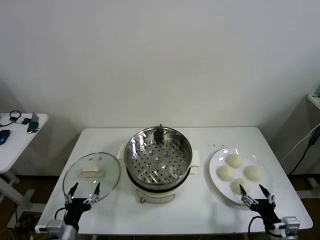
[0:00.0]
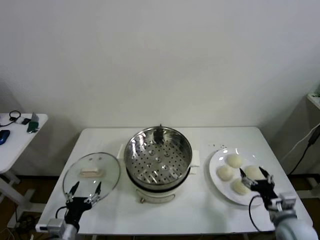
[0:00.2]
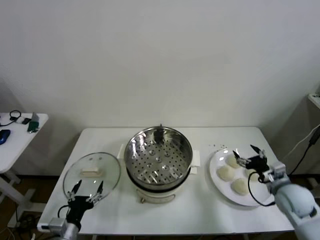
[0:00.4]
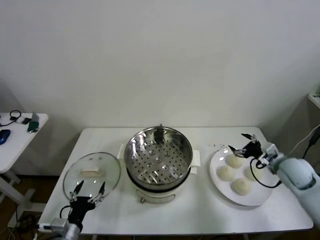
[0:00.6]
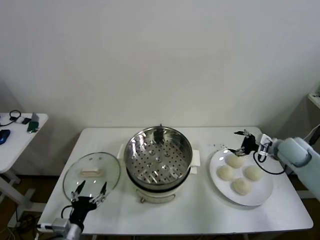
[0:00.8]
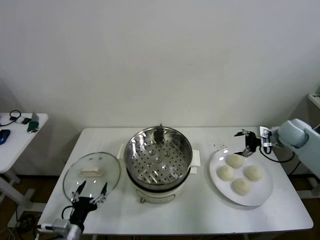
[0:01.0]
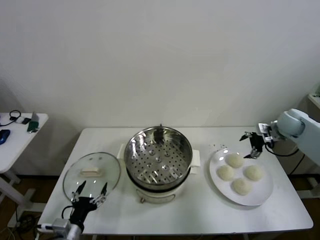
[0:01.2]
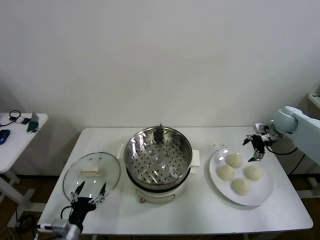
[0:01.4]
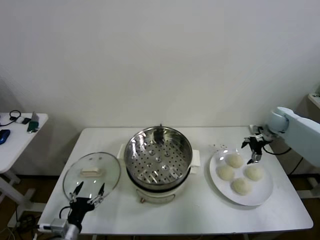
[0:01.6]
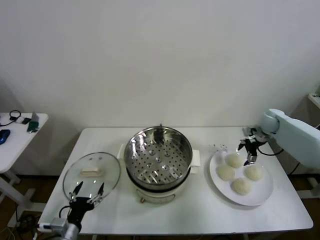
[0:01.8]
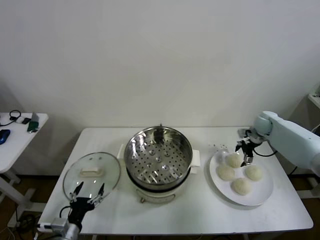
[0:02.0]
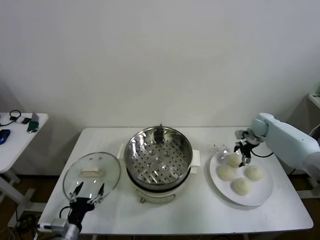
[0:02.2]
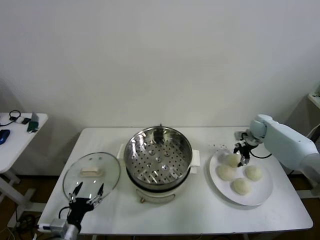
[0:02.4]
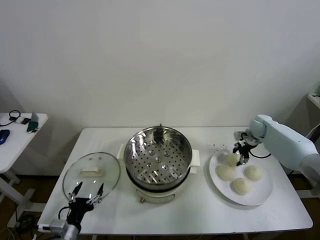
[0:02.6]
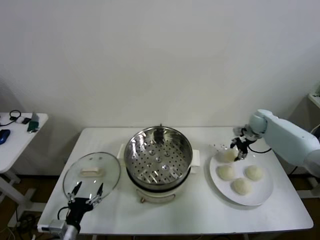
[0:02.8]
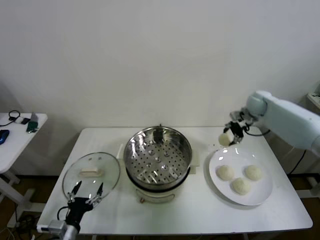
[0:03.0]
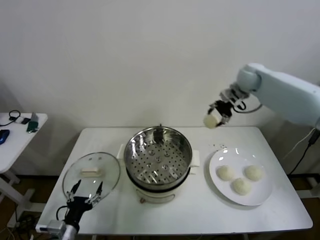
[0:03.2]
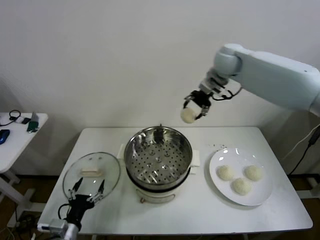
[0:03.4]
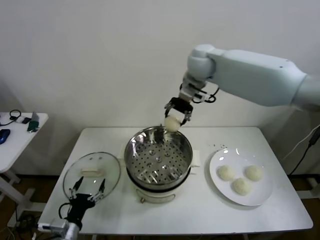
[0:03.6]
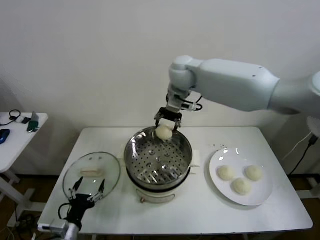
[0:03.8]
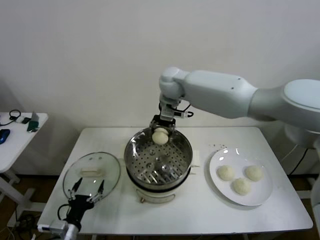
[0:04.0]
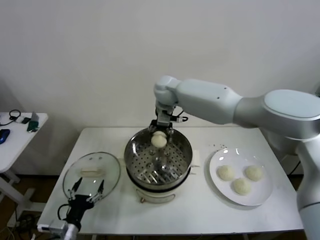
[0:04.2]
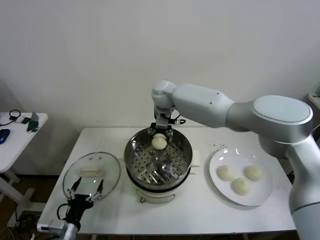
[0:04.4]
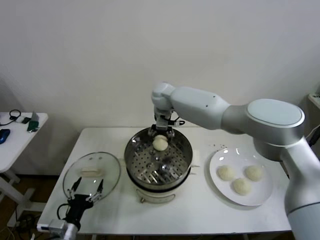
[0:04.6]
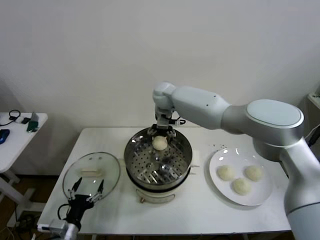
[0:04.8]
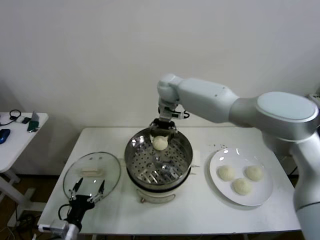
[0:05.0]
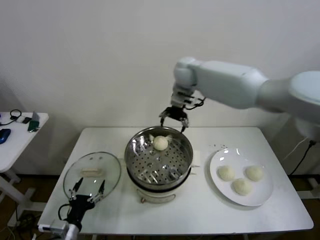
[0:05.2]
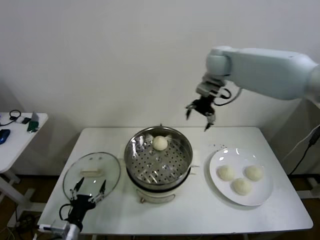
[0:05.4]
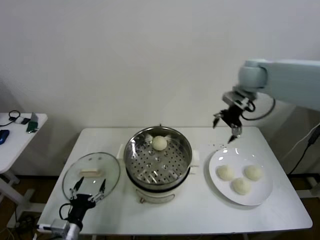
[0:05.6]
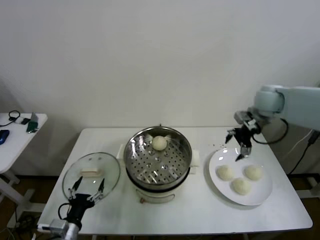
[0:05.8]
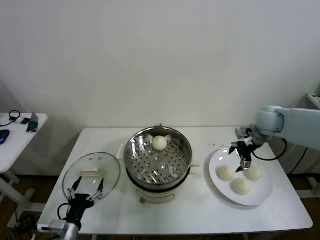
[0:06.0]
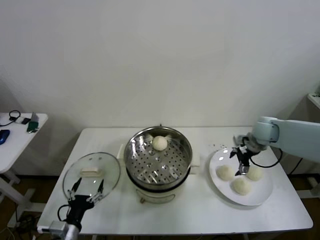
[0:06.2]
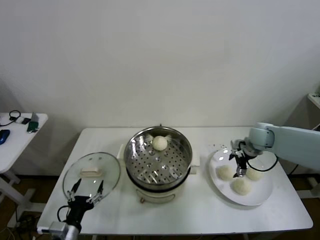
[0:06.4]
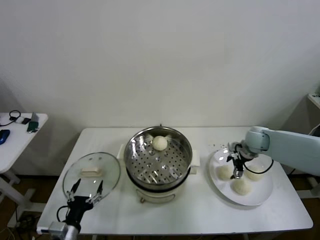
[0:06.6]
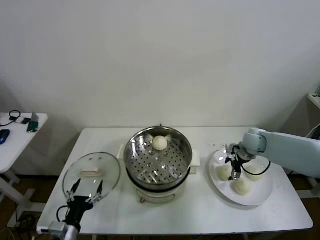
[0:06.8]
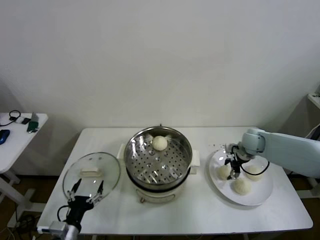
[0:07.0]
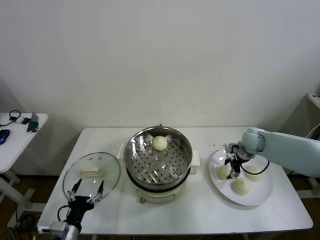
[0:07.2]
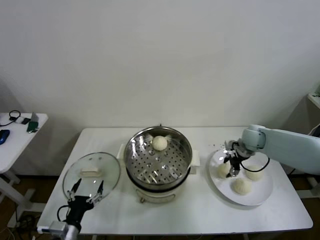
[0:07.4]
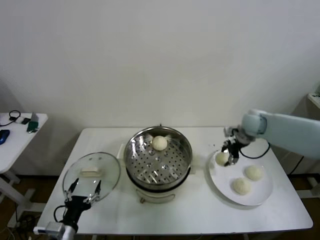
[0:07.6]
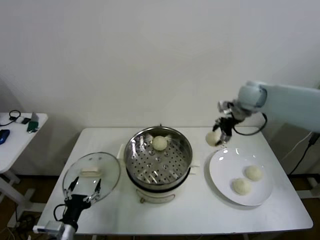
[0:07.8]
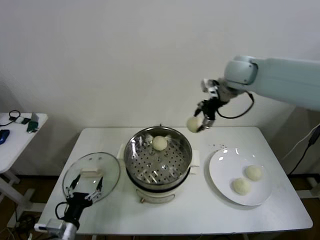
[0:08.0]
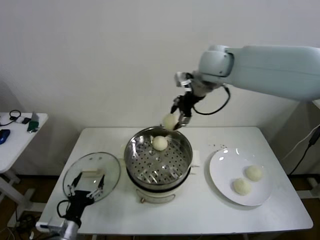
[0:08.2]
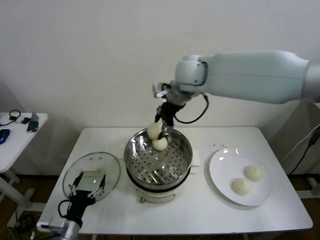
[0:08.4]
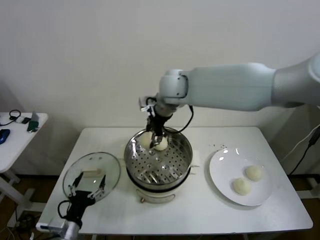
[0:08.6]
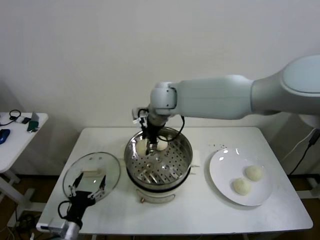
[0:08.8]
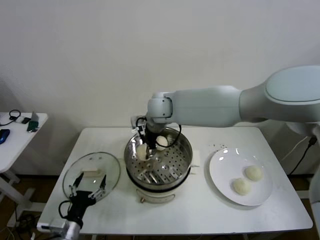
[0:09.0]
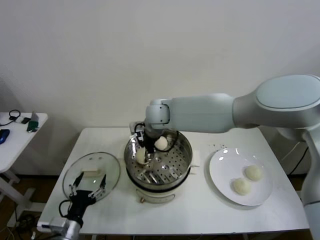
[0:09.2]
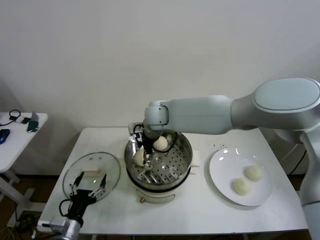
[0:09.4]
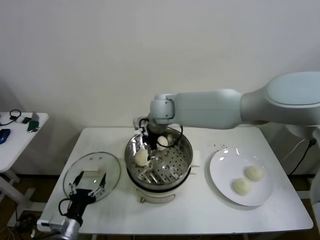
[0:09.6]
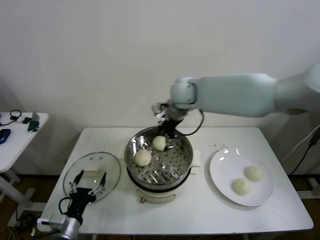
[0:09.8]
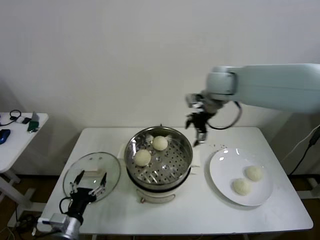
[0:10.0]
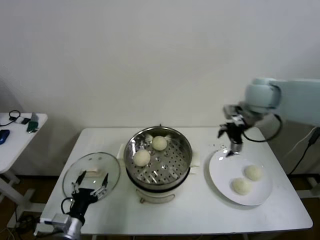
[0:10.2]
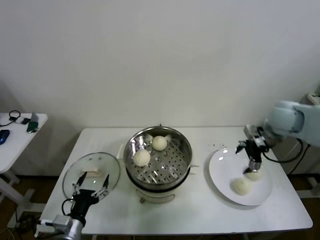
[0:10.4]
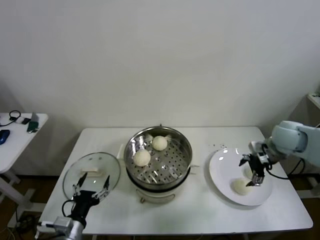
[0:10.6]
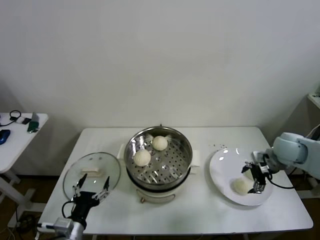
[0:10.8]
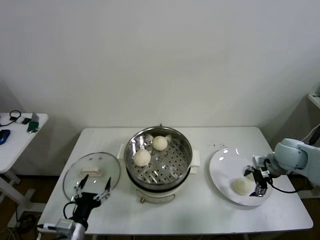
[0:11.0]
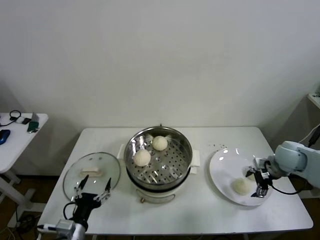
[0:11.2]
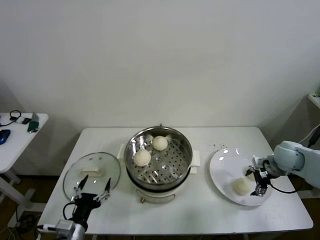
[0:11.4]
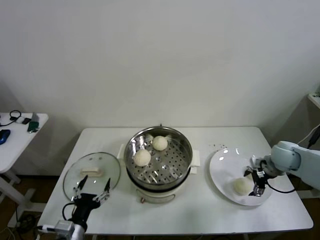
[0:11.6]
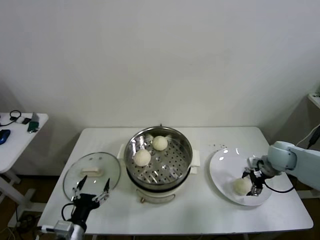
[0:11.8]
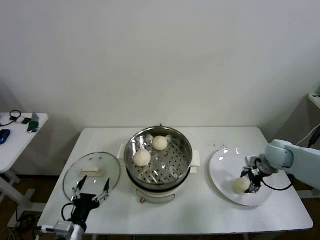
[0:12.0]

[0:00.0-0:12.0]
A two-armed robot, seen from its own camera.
Step, 0:00.0 to 0:02.4: Grasp the baozi in the plate with right gripper.
Step, 0:02.6 to 0:04.6: Place the baozi on the steamer with right gripper.
Step, 0:04.8 to 0:07.0: Grasp the baozi in the plate with right gripper.
Step, 0:07.4 to 0:09.4: Place the baozi on the steamer with right gripper.
0:01.6 to 0:03.0: The right gripper heads to the left and forward, covering about 10 cm, and closes up.
0:03.0 to 0:04.4: The right gripper shifts approximately 35 cm to the left.
0:04.4 to 0:06.0: The right gripper travels to the right by about 35 cm, and opens up.
0:06.0 to 0:07.6: The right gripper closes.
0:07.6 to 0:09.0: The right gripper heads to the left, covering roughly 35 cm.
0:09.0 to 0:10.4: The right gripper shifts roughly 35 cm to the right, and opens its fingers.
0:10.4 to 0:12.0: The right gripper moves downward, some 15 cm, and closes up.

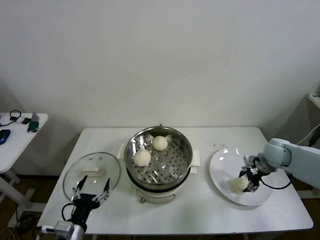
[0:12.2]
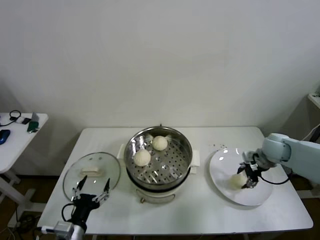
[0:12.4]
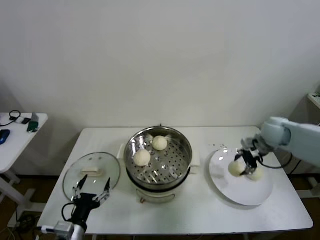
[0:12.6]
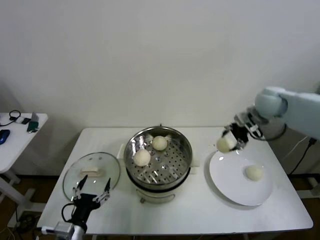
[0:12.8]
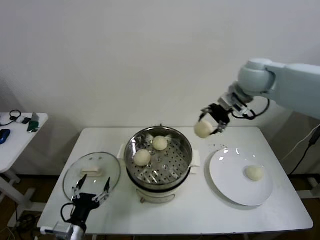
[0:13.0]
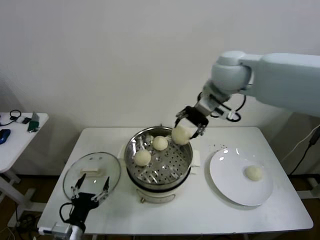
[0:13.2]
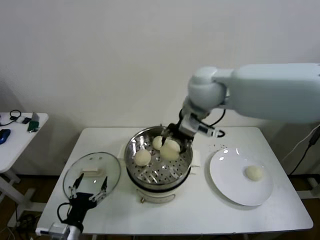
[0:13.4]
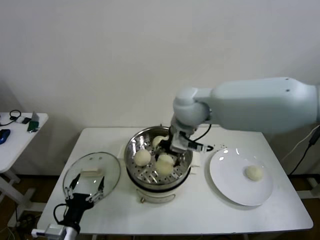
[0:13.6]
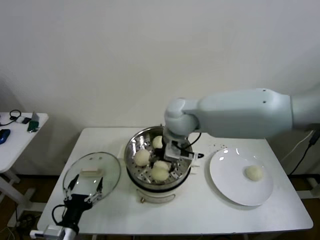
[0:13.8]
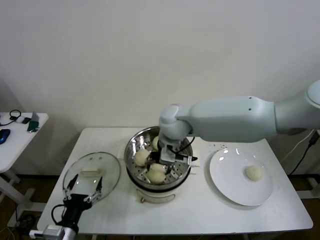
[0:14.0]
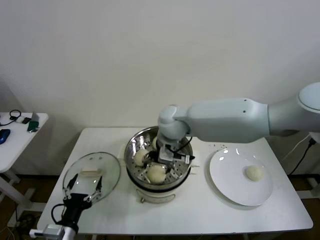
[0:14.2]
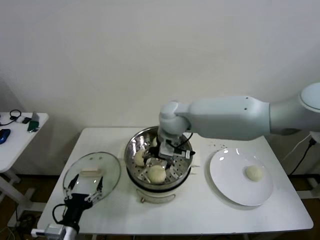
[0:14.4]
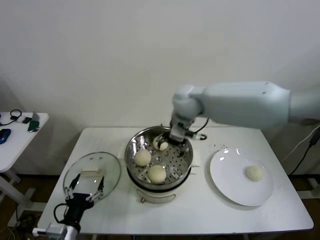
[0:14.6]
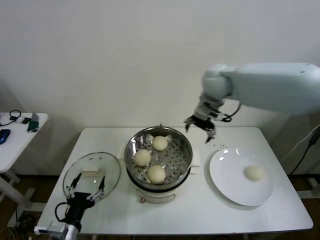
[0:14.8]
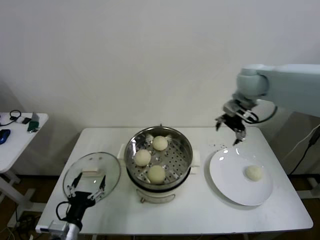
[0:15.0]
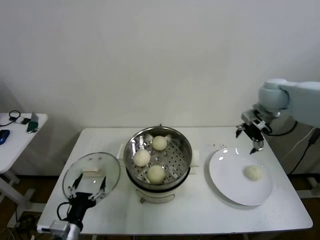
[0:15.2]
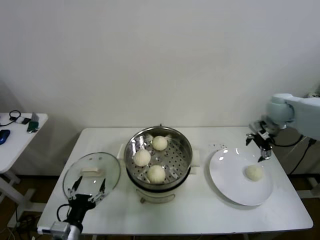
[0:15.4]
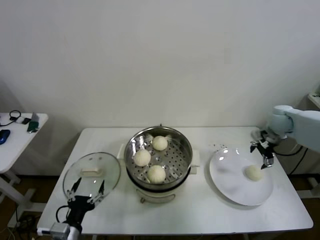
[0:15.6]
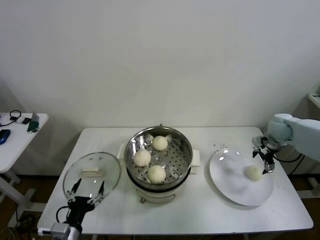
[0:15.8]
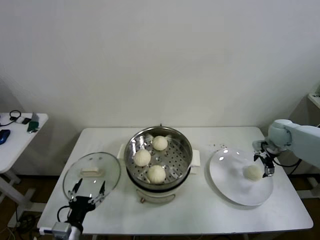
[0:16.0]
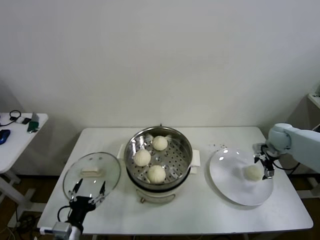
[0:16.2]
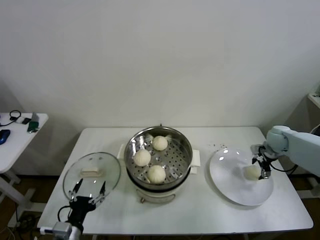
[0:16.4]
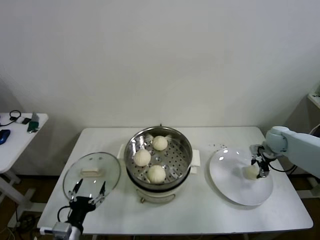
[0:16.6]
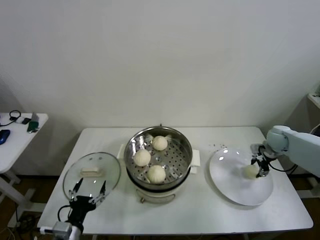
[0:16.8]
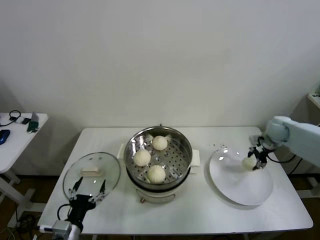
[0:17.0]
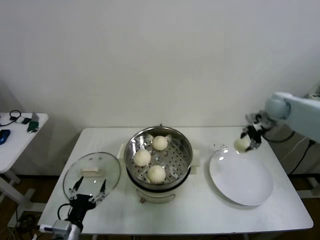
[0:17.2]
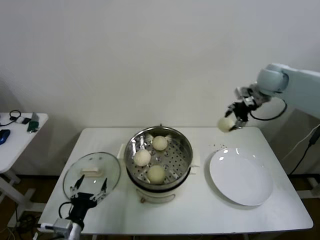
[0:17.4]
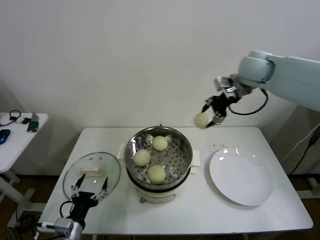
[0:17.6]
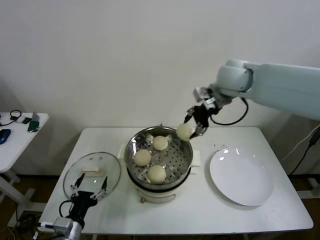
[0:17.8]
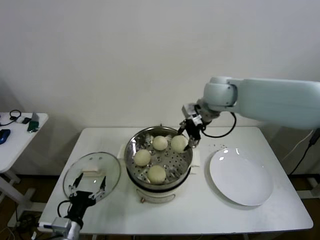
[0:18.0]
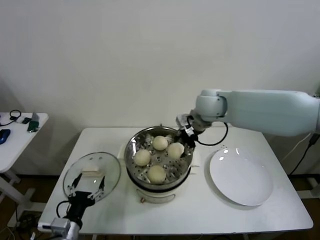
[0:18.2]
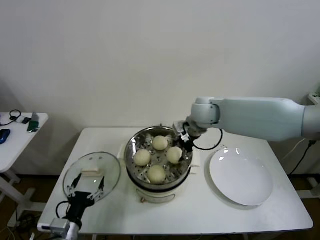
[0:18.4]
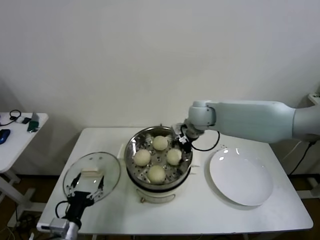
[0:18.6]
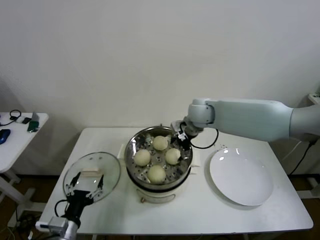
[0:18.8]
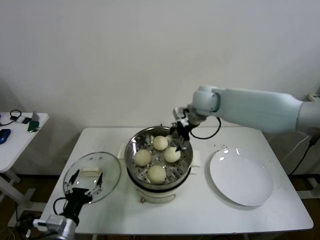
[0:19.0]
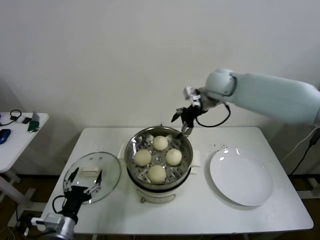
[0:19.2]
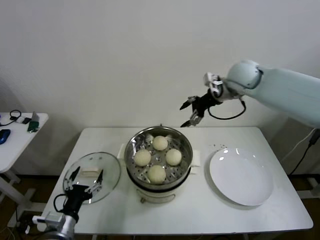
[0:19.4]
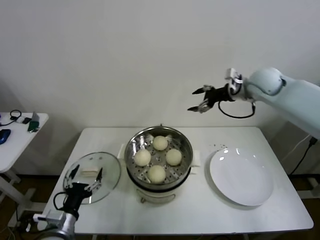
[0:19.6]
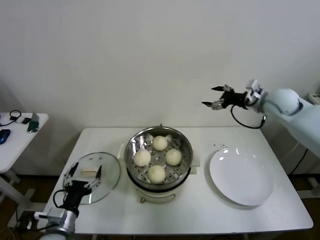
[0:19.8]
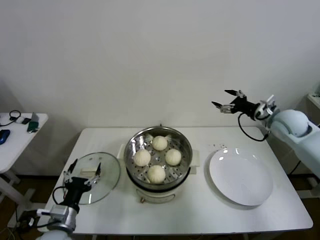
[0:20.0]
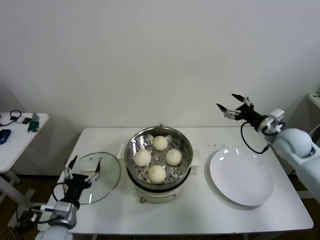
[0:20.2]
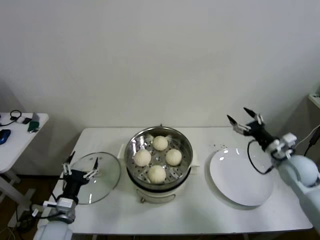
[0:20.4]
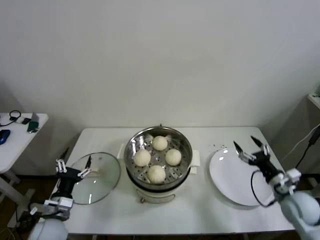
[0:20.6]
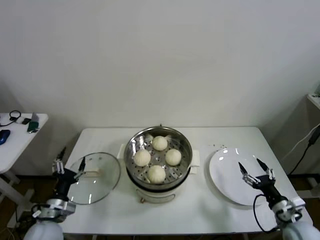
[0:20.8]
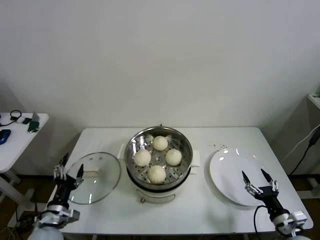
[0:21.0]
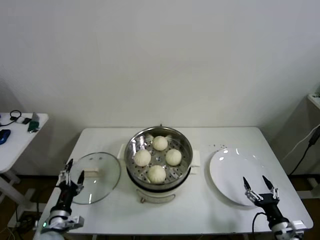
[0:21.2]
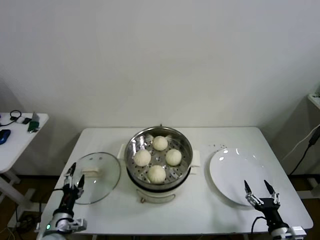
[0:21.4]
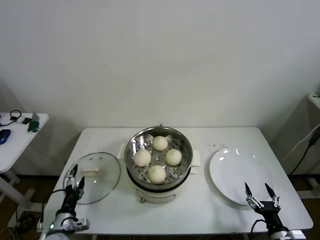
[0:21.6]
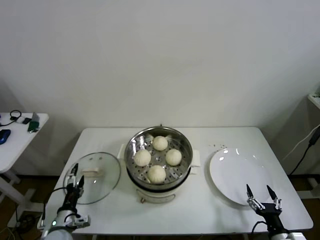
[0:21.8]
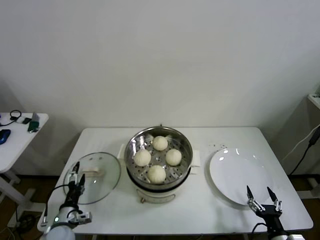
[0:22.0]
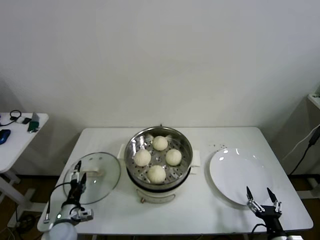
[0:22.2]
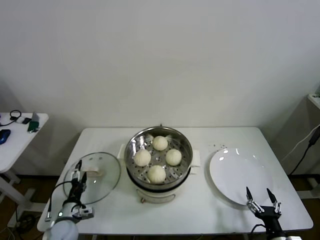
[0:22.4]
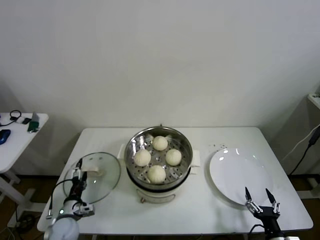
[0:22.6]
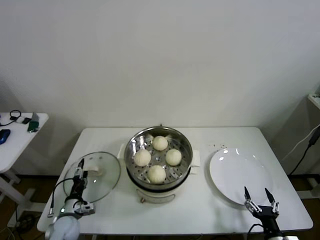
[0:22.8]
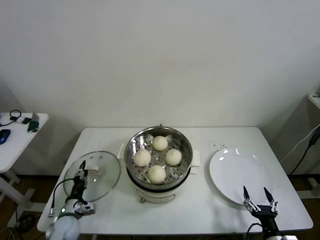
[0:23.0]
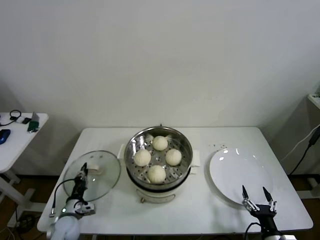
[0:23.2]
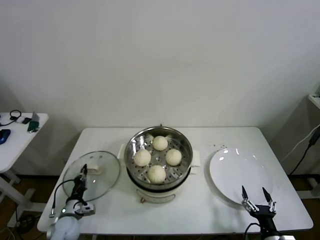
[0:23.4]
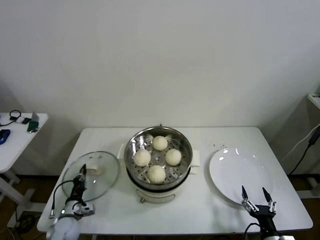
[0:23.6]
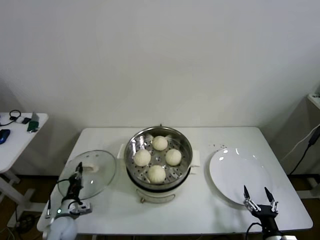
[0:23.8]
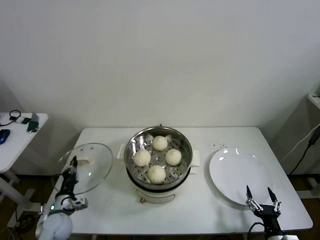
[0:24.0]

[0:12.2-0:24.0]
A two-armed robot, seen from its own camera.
Step, 0:12.4 to 0:14.0: Place the baozi on the steamer with right gripper.
Step, 0:14.4 to 0:16.6: Grasp the baozi in the plate with right gripper.
Step, 0:16.8 to 0:18.6: Place the baozi on the steamer with right gripper.
Step, 0:18.8 to 0:23.2: Grasp the pot lid with left gripper.
0:12.2 to 0:13.6: The right gripper goes approximately 40 cm to the left and upward.
0:13.6 to 0:15.2: The right gripper moves to the right, about 25 cm, and opens its fingers.
0:15.2 to 0:16.6: The right gripper is displaced downward and to the right by approximately 25 cm, and closes.
0:16.6 to 0:18.2: The right gripper shifts approximately 35 cm to the left and upward.
0:18.2 to 0:19.6: The right gripper travels to the right by some 15 cm, and opens.
0:19.6 to 0:21.0: The left gripper goes roughly 5 cm to the left. The right gripper heads downward and backward, covering about 50 cm.
0:21.0 to 0:22.6: The right gripper heads backward, covering roughly 5 cm. Meanwhile the left gripper moves downward, roughly 10 cm.
0:22.6 to 0:24.0: The left gripper closes up.
